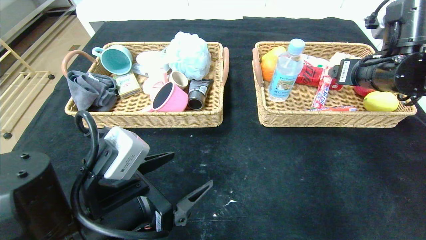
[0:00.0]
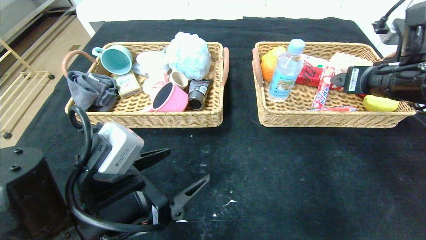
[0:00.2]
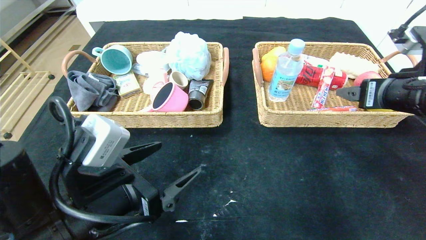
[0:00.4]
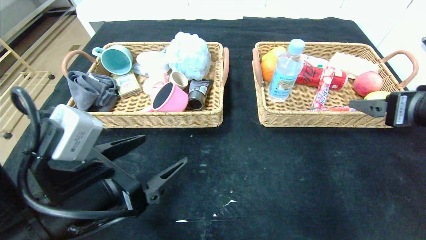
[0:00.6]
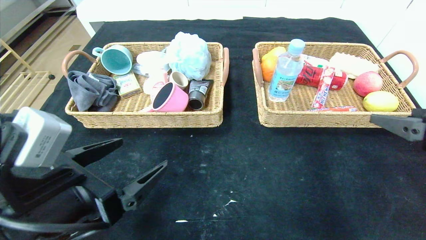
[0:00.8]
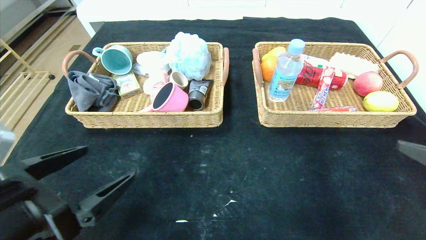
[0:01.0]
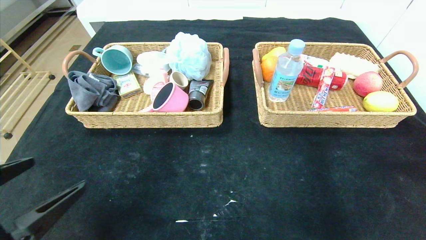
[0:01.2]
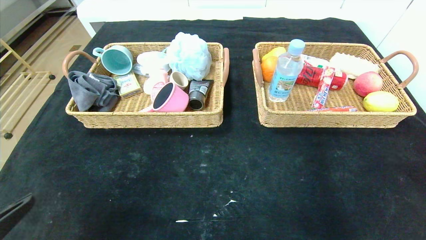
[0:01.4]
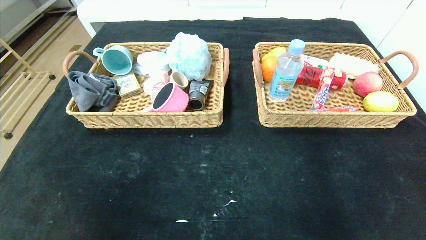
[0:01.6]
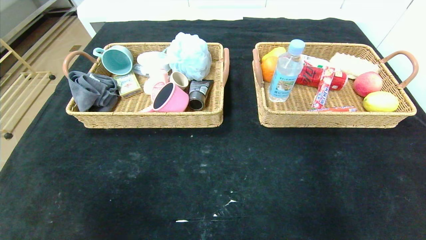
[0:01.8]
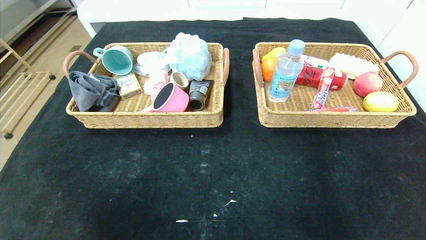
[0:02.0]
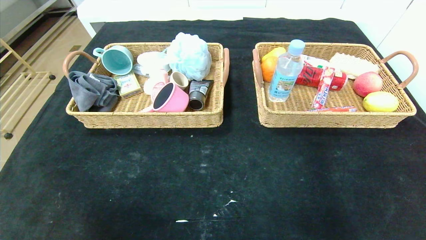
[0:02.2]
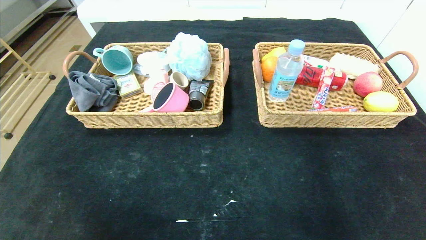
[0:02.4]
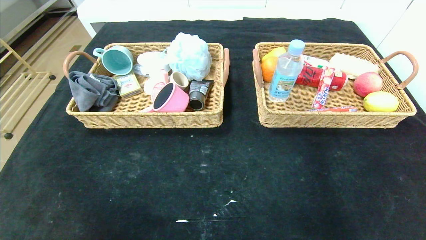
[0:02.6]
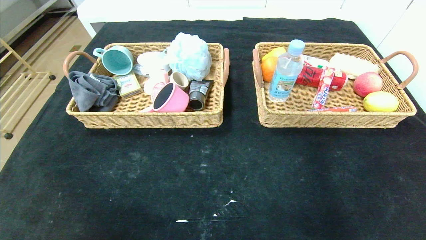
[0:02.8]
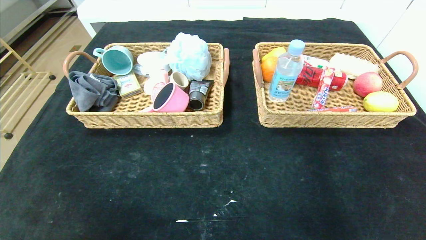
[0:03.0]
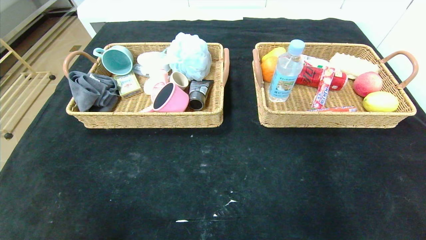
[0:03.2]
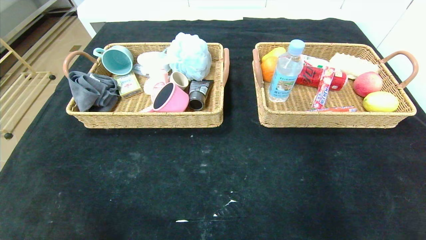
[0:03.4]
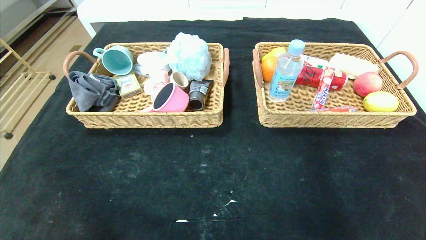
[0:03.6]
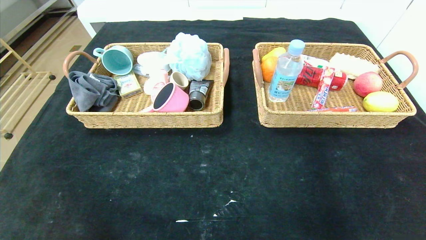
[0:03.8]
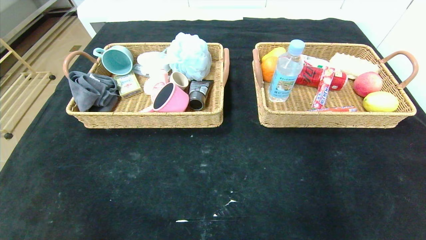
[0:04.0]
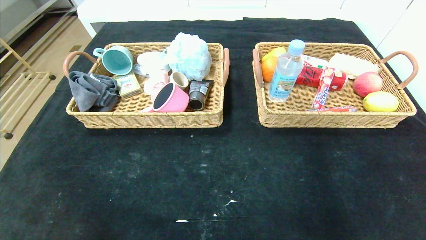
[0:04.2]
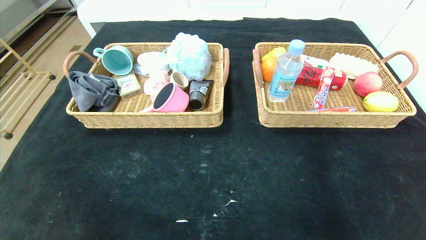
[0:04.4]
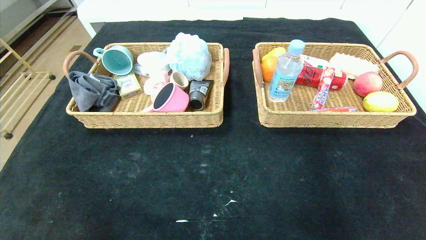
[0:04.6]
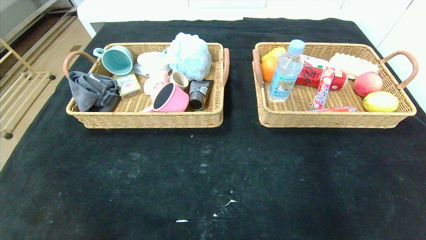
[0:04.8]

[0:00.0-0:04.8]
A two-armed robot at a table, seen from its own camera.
0:00.0 to 0:01.6: The left gripper moves backward and to the left, roughly 20 cm, while the right gripper travels backward by approximately 35 cm.
